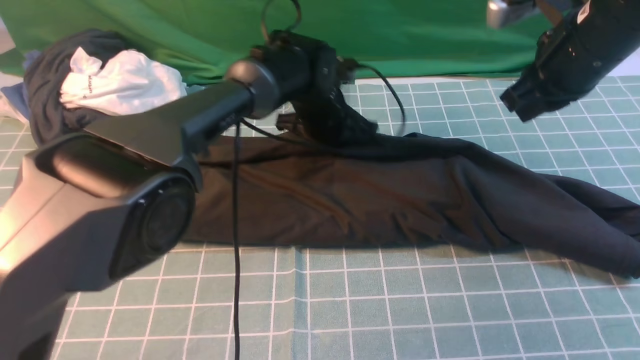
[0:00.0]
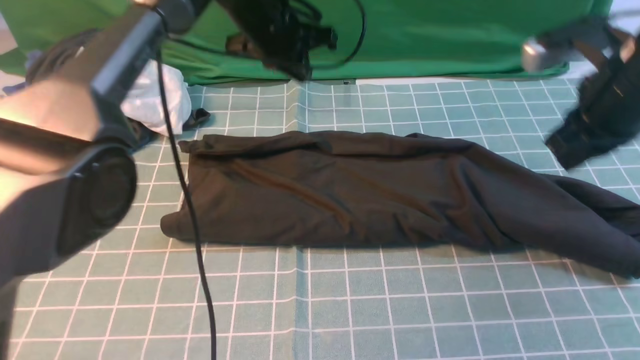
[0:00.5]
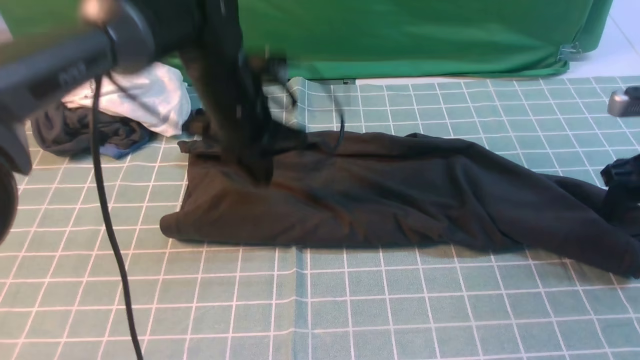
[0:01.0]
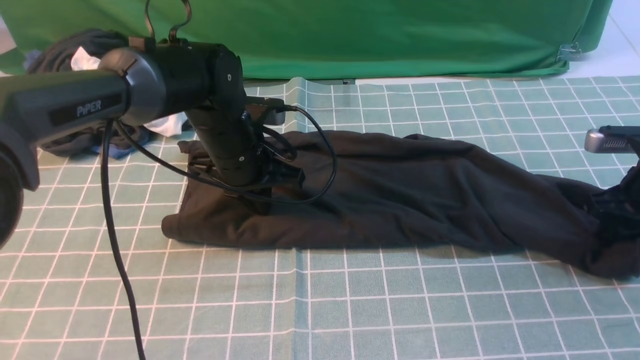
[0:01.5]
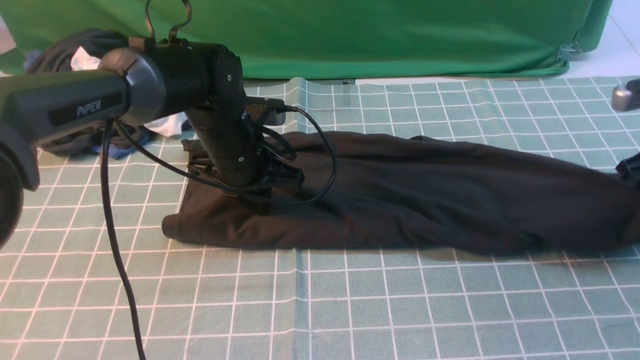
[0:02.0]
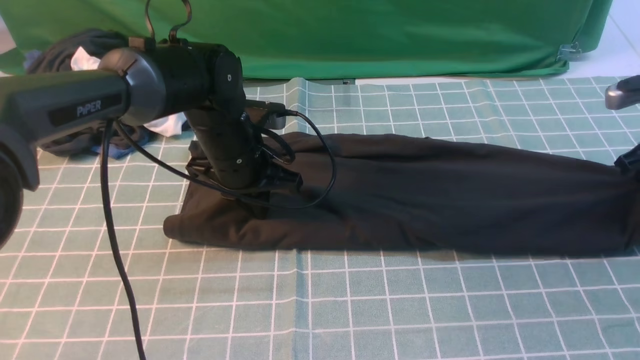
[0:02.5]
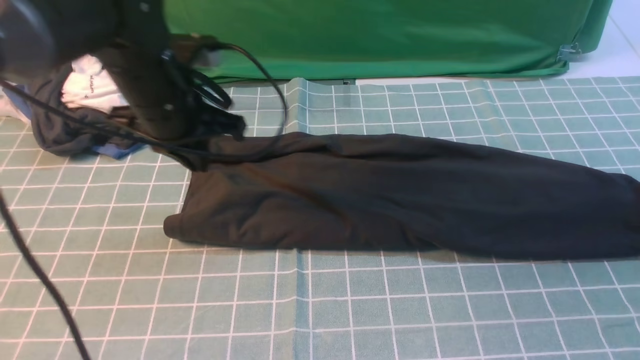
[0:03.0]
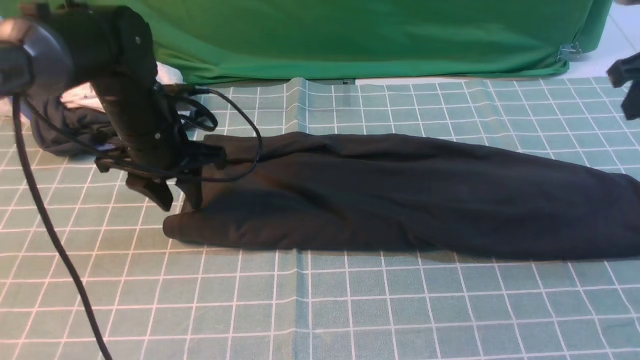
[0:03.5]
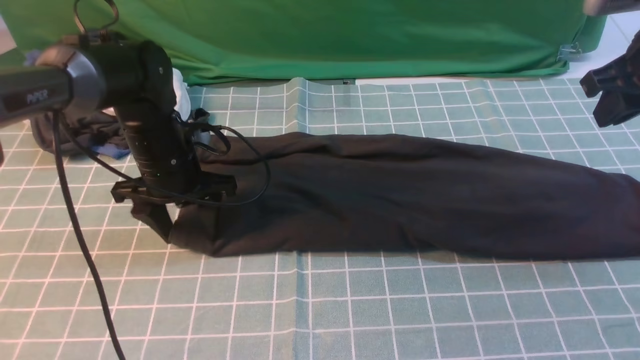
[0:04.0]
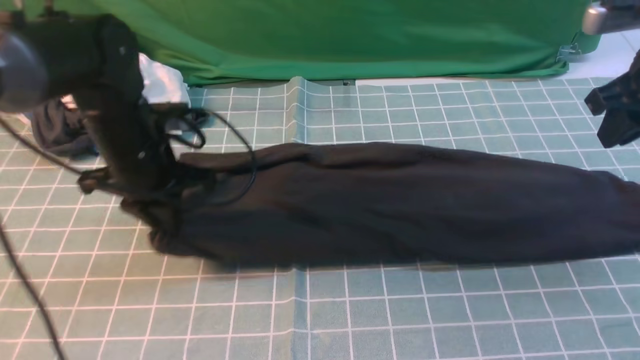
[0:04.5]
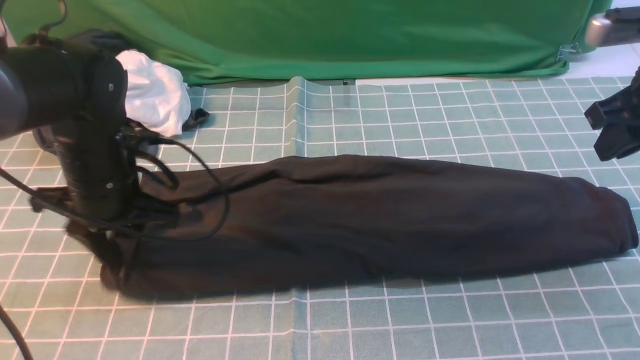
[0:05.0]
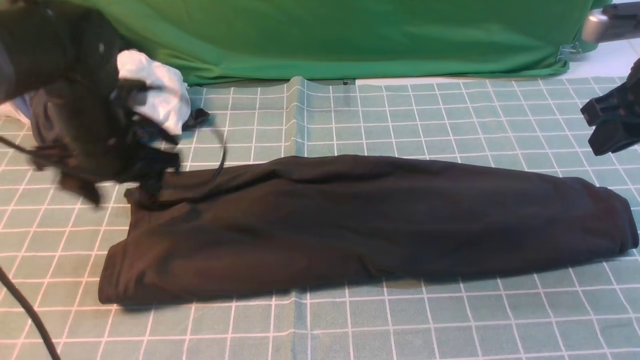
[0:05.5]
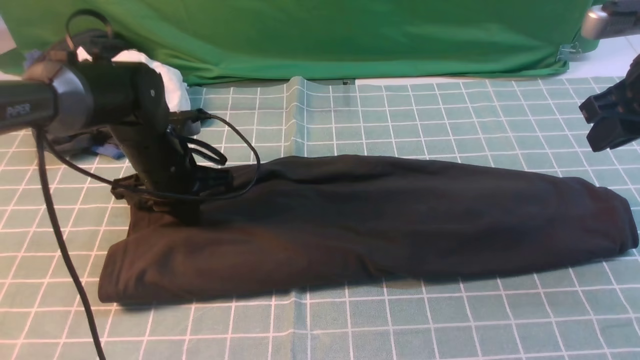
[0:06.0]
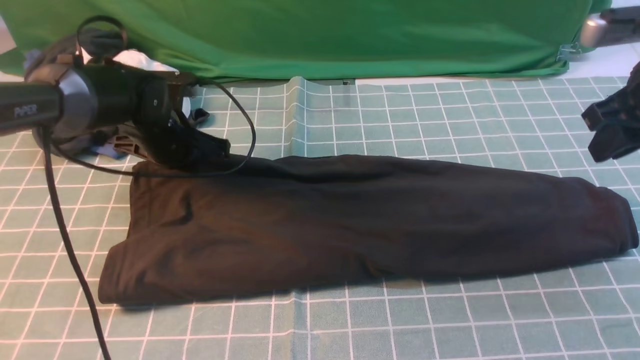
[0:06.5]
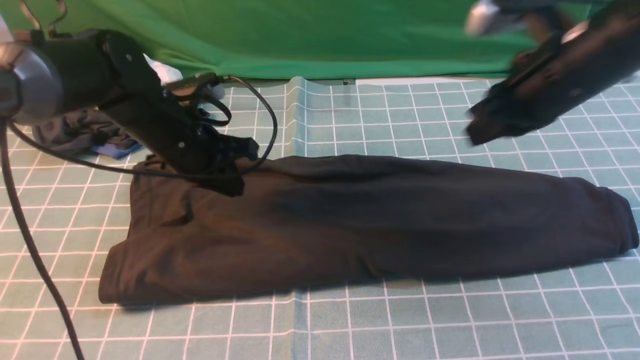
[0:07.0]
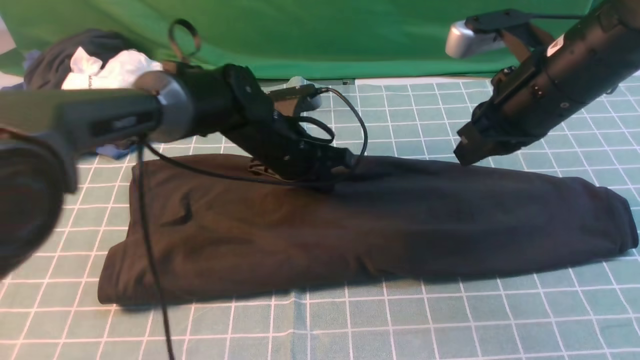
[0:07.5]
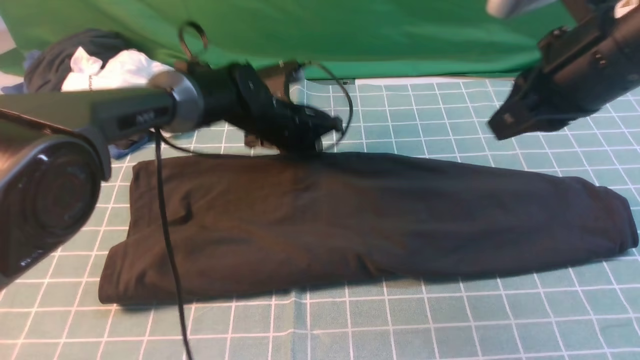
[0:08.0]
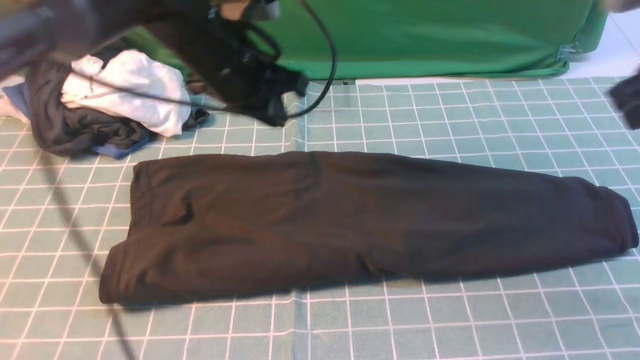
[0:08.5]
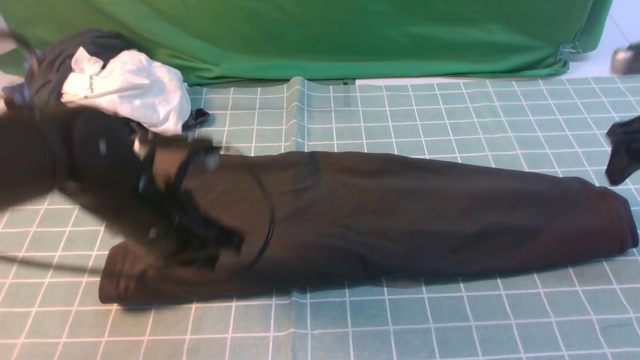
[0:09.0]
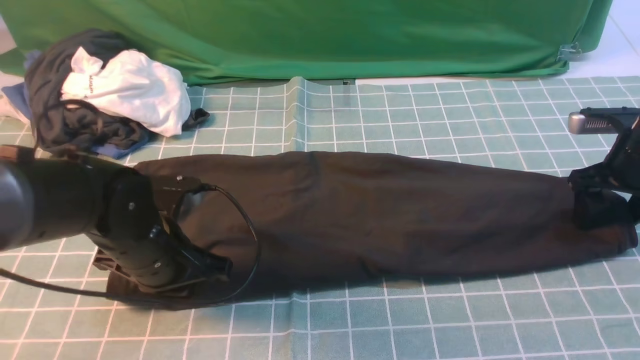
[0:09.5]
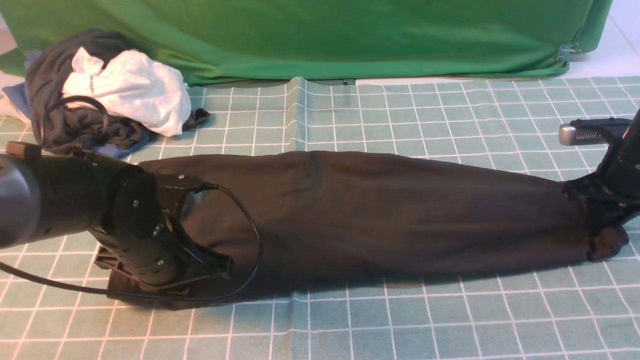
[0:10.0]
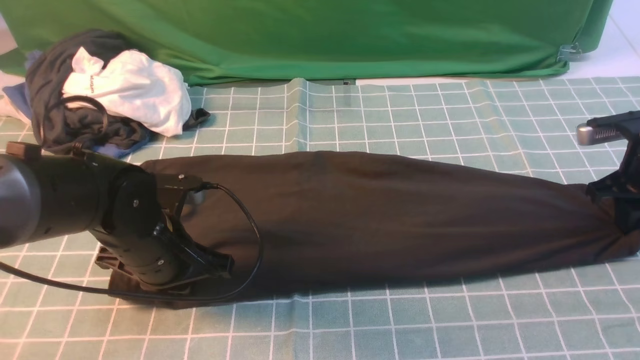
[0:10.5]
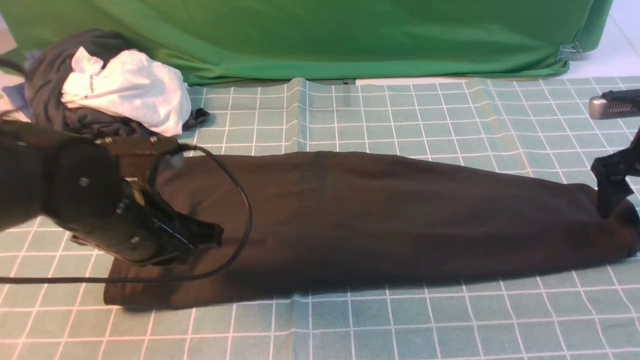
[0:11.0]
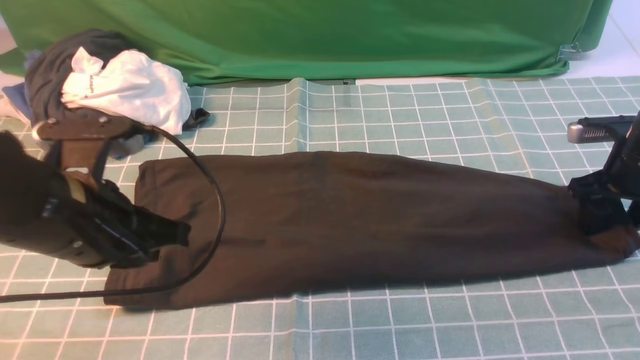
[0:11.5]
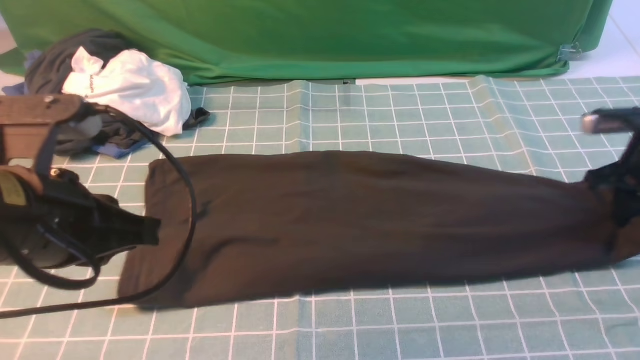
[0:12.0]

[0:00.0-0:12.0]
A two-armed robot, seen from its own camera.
Step, 0:00.0 to 0:10.0: use the right arm to clamp the right edge of the fabric.
0:00.0 to 0:02.0: The right gripper goes roughly 15 cm to the right and downward, and opens and closes again, while the left gripper is displaced backward and to the left by some 10 cm, and reaches about 10 cm upward, then returns.
0:02.0 to 0:04.0: The left gripper moves to the left, about 10 cm, and opens its fingers, while the right gripper heads upward and to the left, covering some 10 cm, and opens, then closes once more.
0:04.0 to 0:06.0: The left gripper closes.
0:06.0 to 0:08.0: The left gripper shifts approximately 15 cm to the right and forward, while the right gripper moves to the left, approximately 10 cm.
0:08.0 to 0:10.0: The left gripper travels backward and to the left by some 20 cm; the right gripper shifts some 25 cm downward, to the right and forward, and opens and closes again.
0:10.0 to 0:12.0: The right gripper opens, then closes again. Meanwhile the left gripper travels upward and backward by approximately 20 cm.

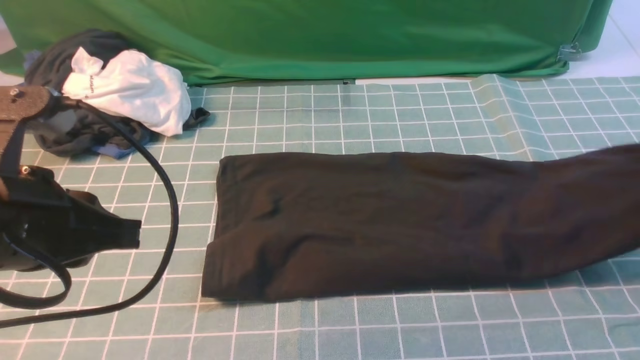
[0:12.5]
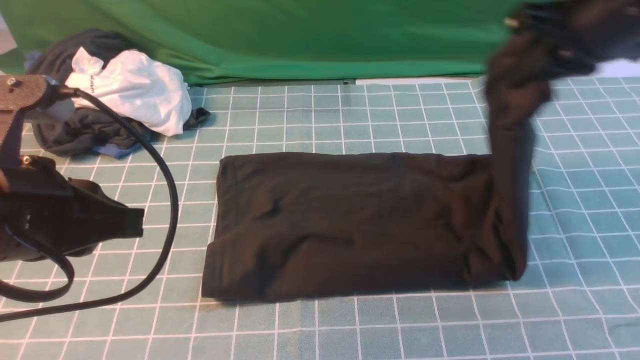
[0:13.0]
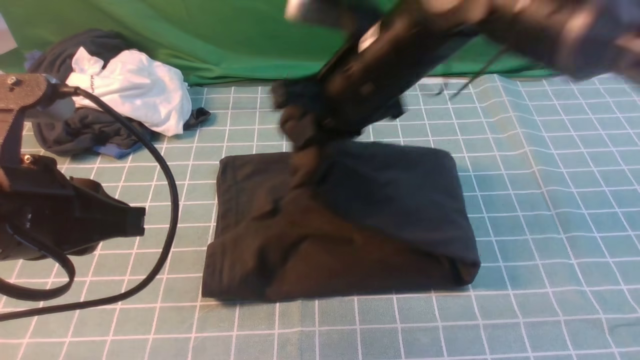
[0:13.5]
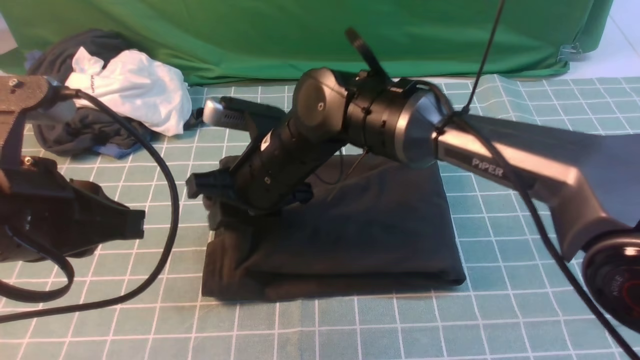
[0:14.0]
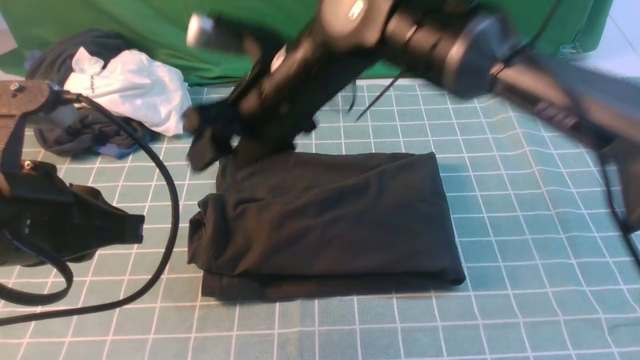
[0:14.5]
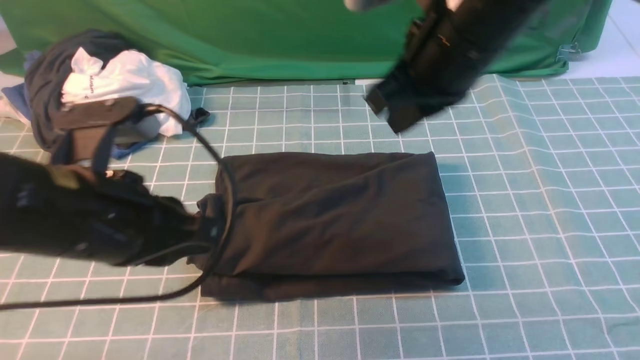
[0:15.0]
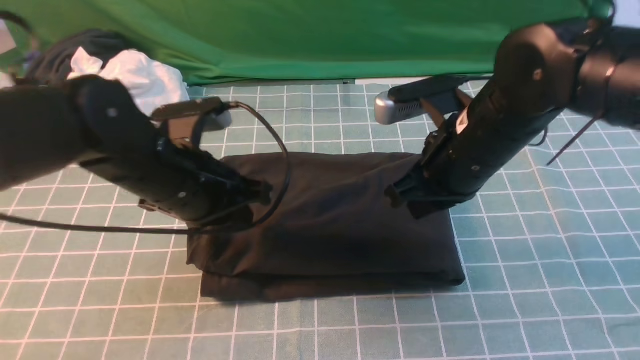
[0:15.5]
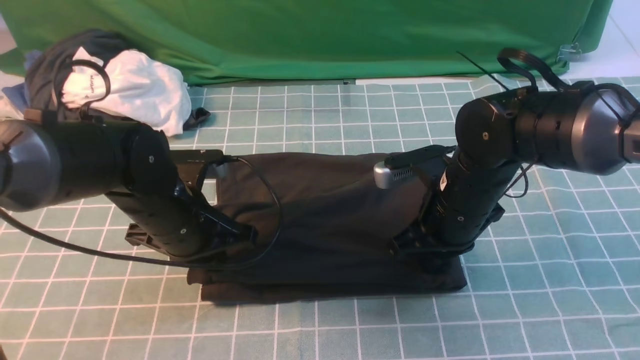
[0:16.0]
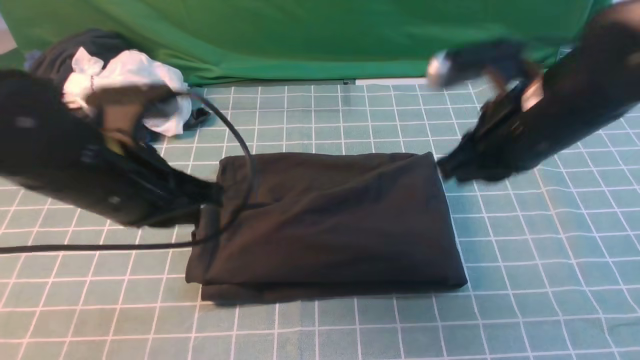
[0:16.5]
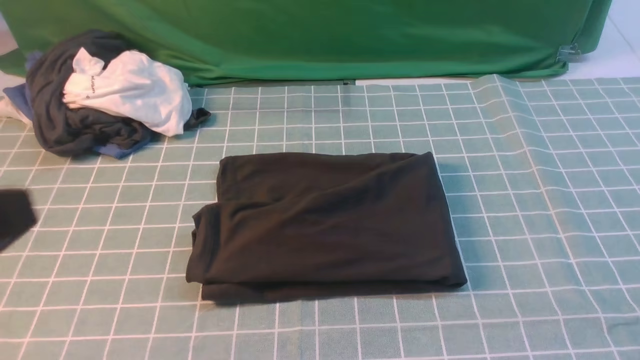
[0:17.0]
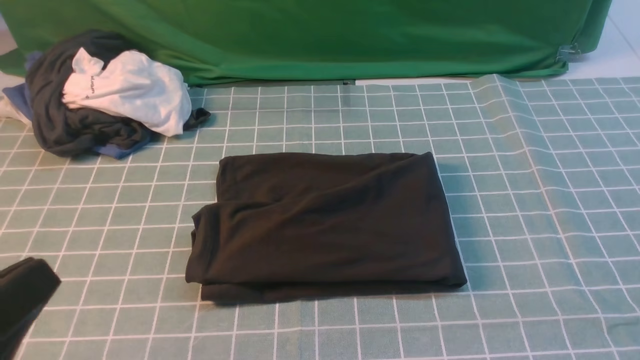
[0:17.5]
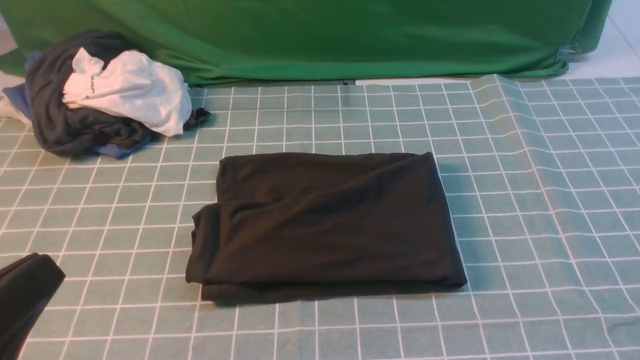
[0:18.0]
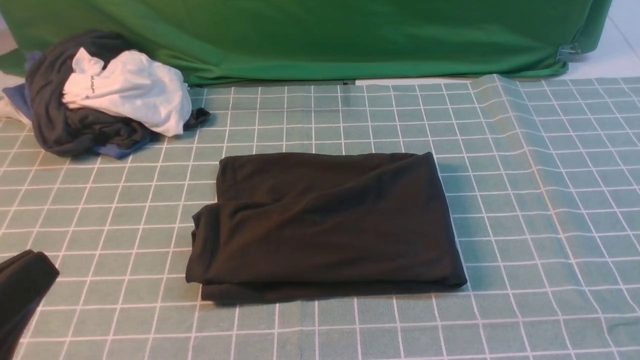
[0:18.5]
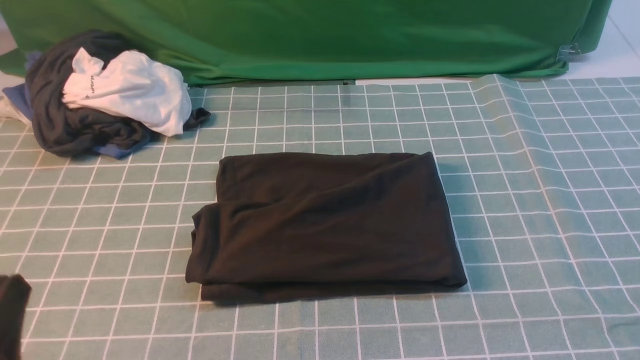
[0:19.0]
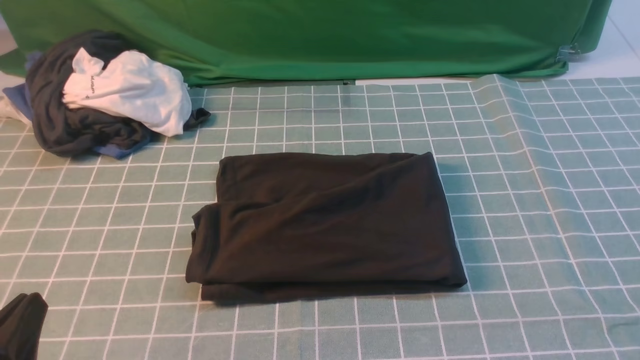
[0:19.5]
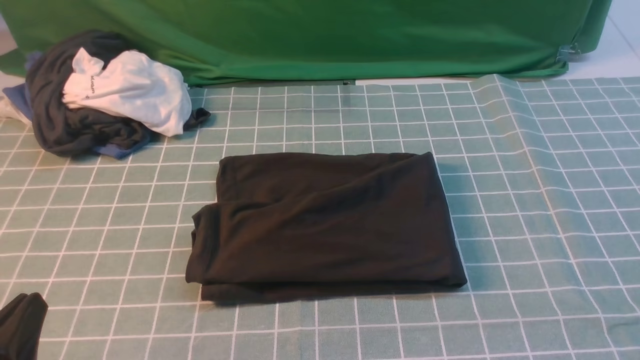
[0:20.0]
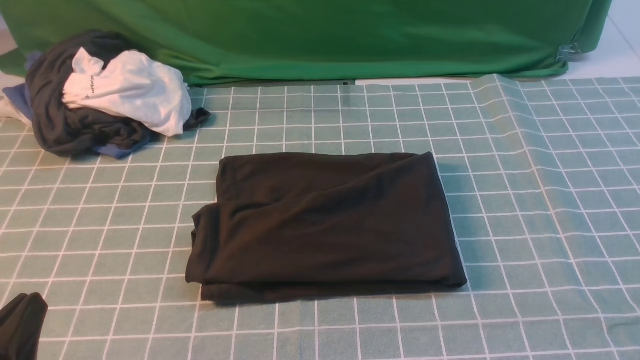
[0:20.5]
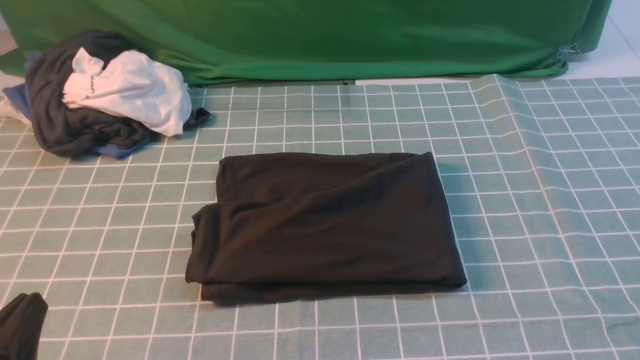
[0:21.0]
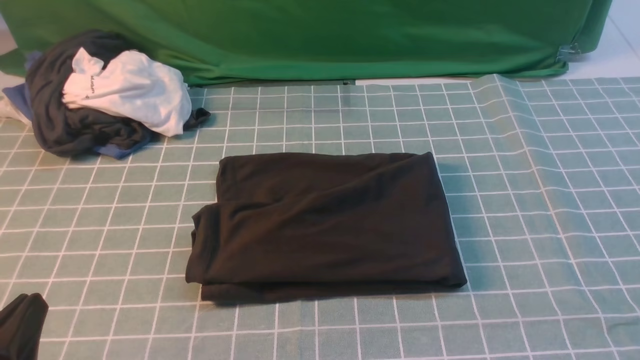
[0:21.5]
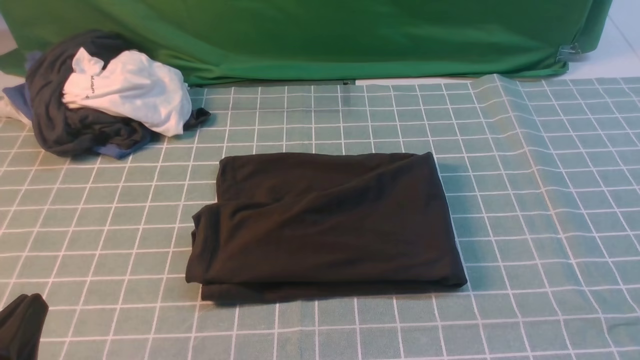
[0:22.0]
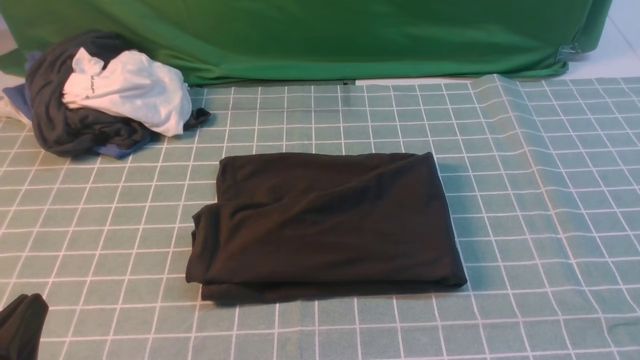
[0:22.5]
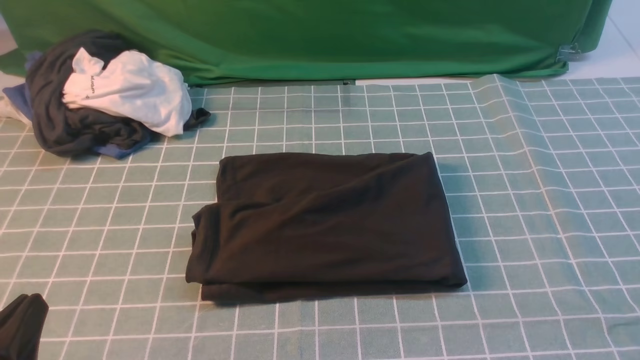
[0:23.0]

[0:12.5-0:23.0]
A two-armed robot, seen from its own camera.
Step, 0:12.5 to 0:14.5: use the right arm to drag the right edge of the fabric to the left and folds it over the left edge.
0:12.5 to 0:14.5: The right gripper is displaced to the left by about 40 cm, and opens.
0:14.5 to 0:16.5: The left gripper travels forward by roughly 5 cm, and goes downward and returns, approximately 15 cm each way, while the right gripper goes about 20 cm to the right, and closes.
0:16.5 to 0:19.0: The left gripper heads backward and downward, covering roughly 20 cm, while the right gripper goes about 30 cm backward and to the right.
